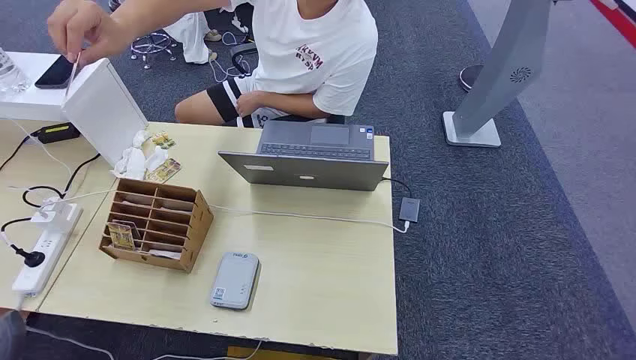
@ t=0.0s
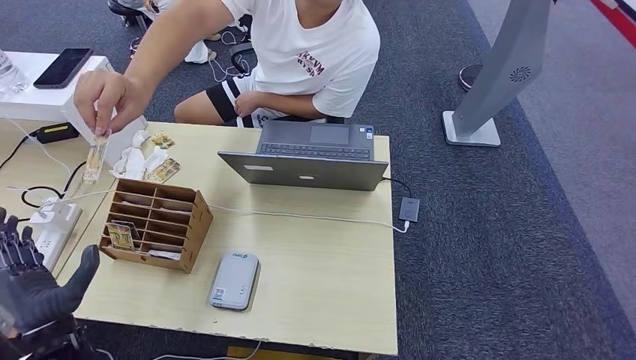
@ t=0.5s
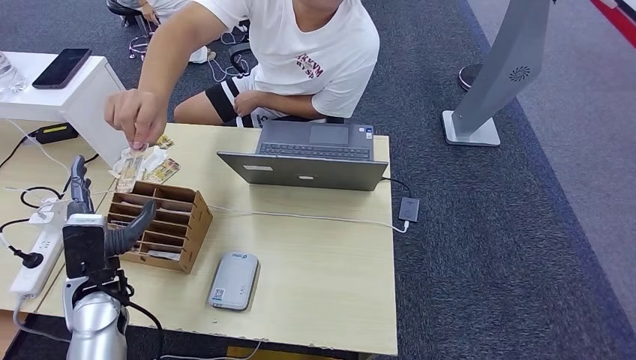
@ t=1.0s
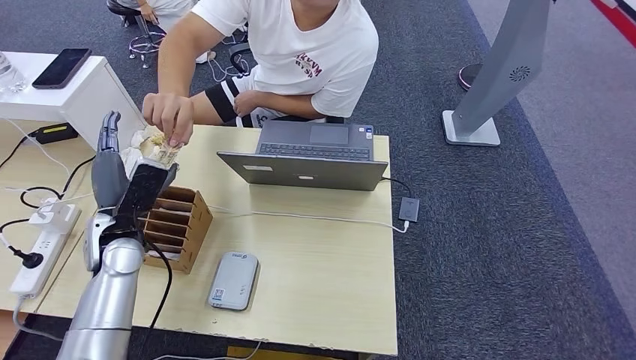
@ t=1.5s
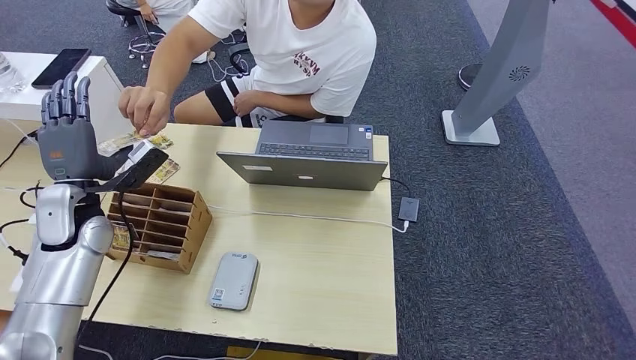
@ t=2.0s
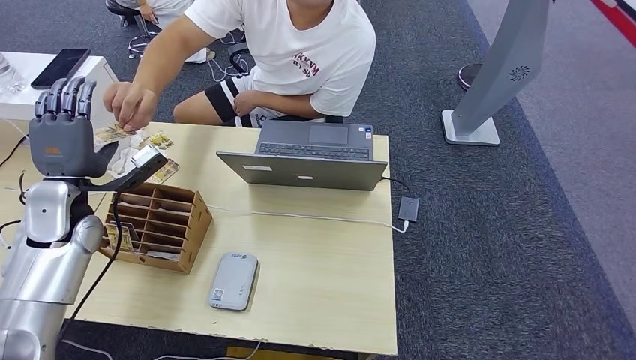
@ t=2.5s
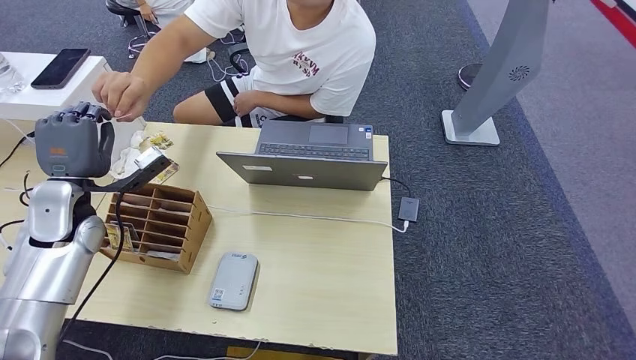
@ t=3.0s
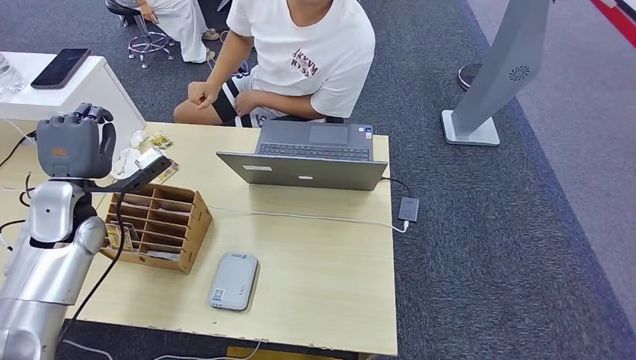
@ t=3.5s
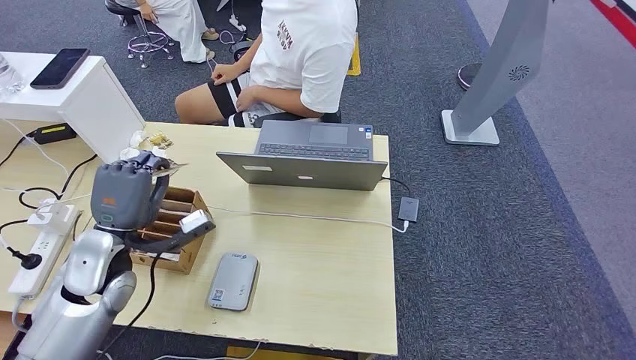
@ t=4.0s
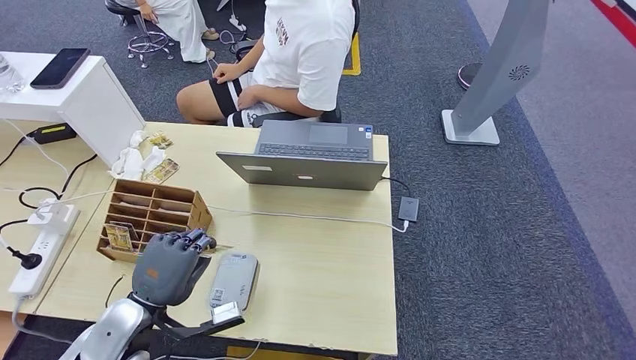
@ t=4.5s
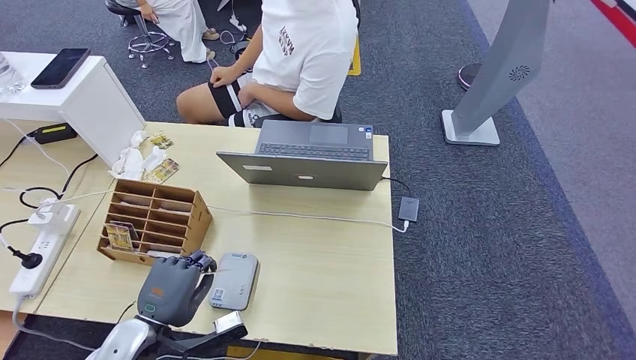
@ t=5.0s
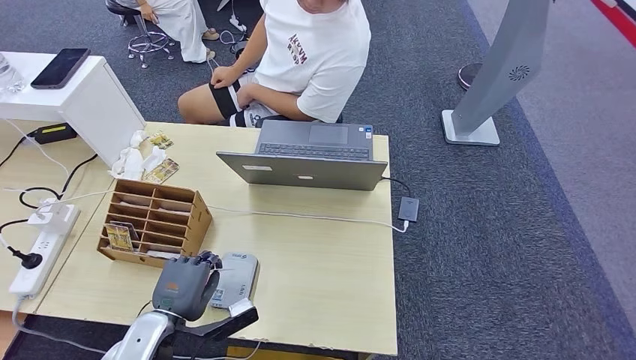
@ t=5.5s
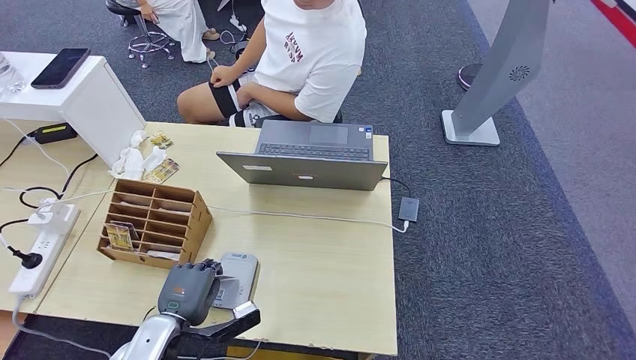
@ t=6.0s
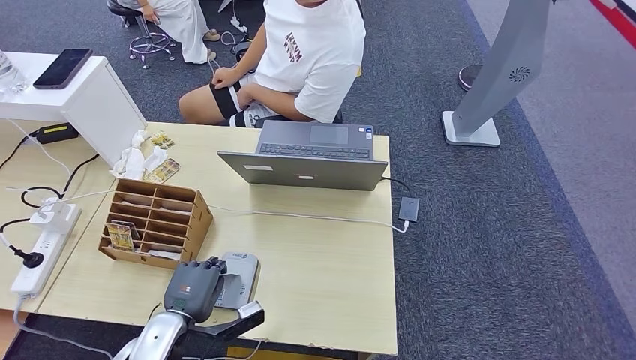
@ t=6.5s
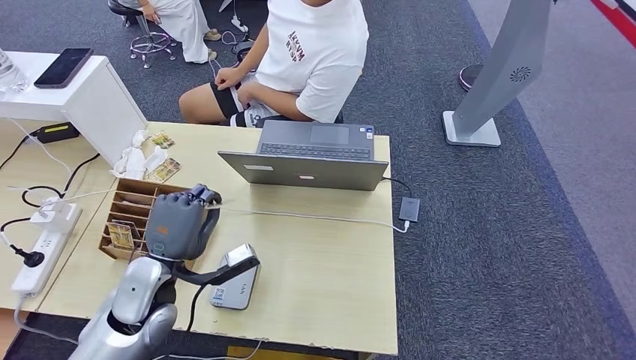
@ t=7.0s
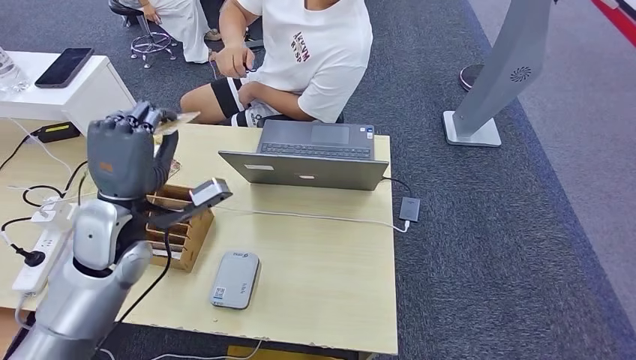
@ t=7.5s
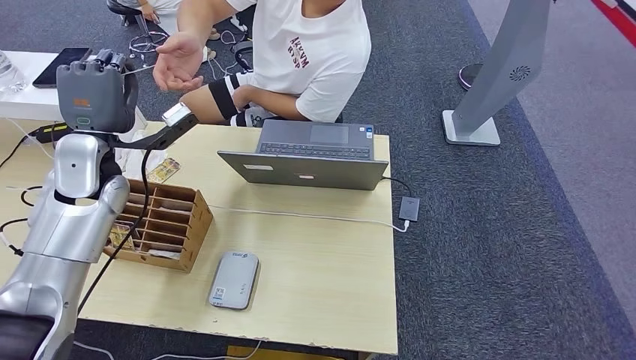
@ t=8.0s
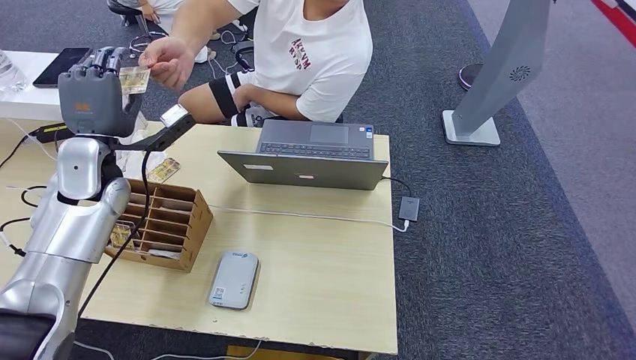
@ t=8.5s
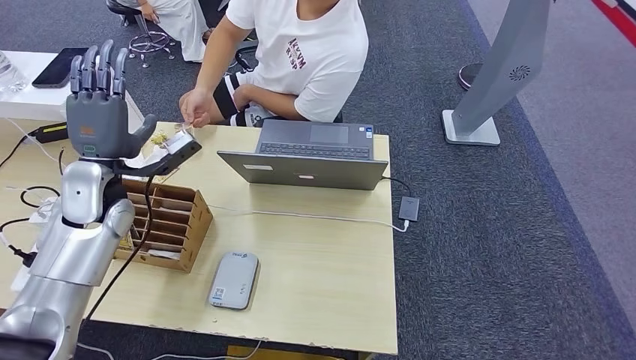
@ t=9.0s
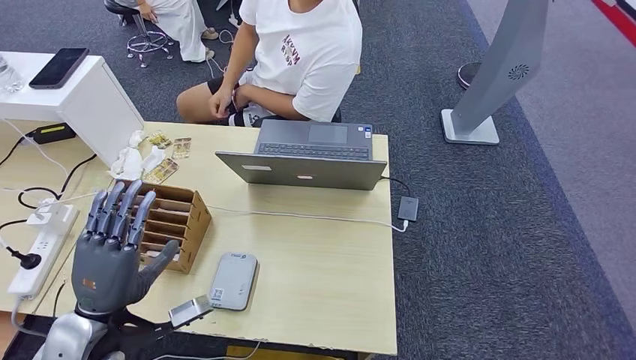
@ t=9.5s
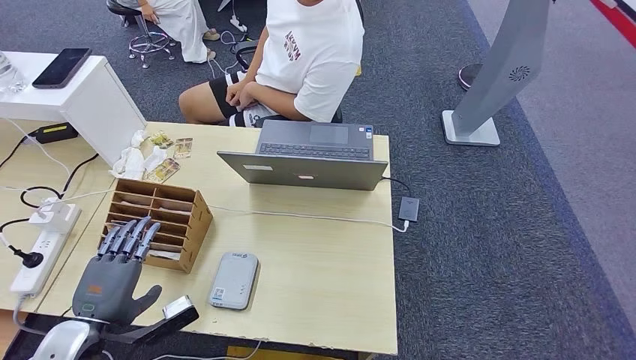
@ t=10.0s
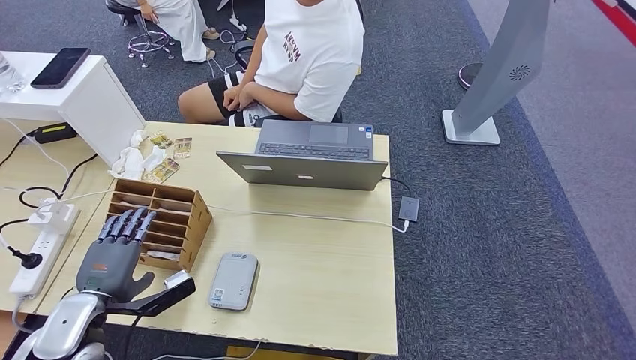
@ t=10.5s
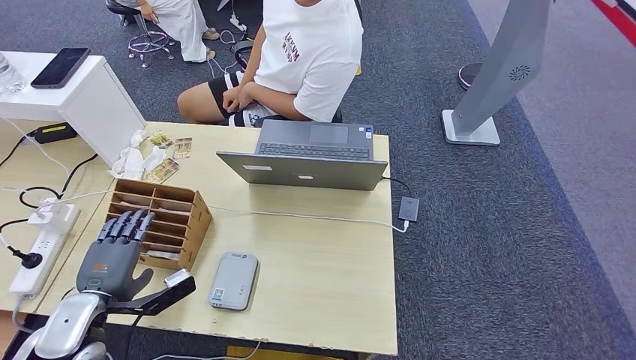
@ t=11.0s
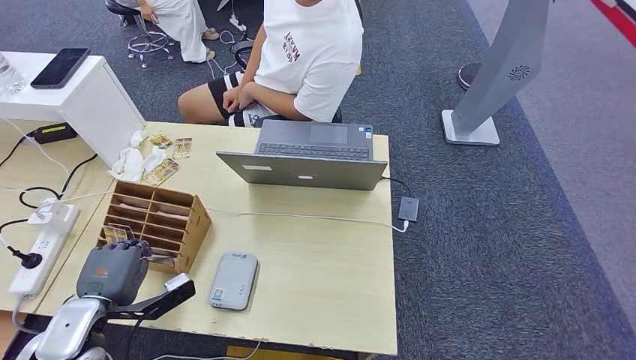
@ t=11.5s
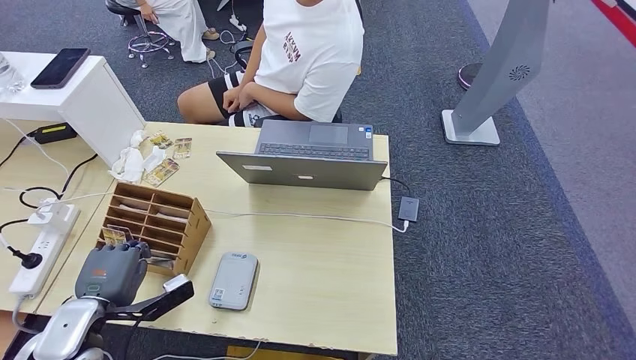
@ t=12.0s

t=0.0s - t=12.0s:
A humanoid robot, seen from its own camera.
Step, t=0.0s - t=3.0s: Take the ID card from the person's hand.
Step, t=3.5s - t=5.0s: Place the ID card on the card reader.
Step, t=5.5s - t=9.5s: Hand the ID card to the person.
t=4.0s - t=6.0s: The left hand shifts approximately 20 cm downward, backward and to the right.
t=6.0s - t=8.0s: The left hand shifts about 35 cm forward, upward and to the left.
t=8.0s - t=10.0s: The left hand shifts some 30 cm backward and downward.
t=10.0s - t=12.0s: There are only small adjustments of the hands.

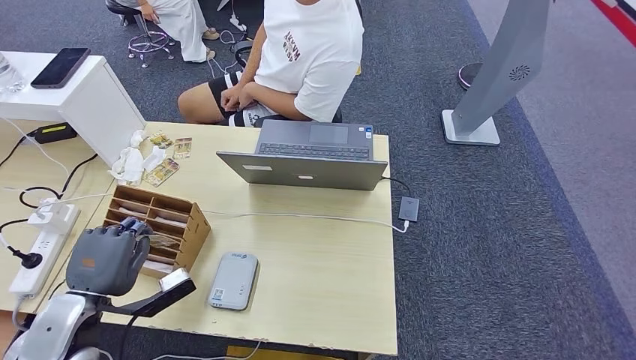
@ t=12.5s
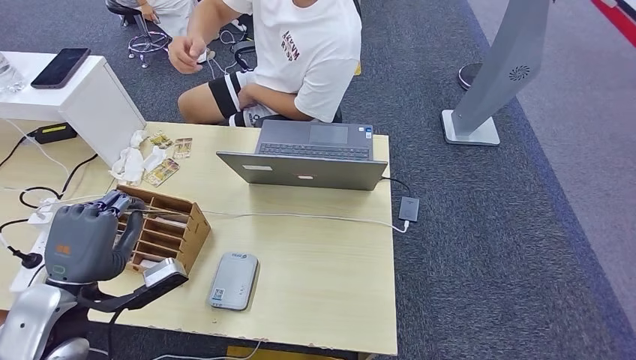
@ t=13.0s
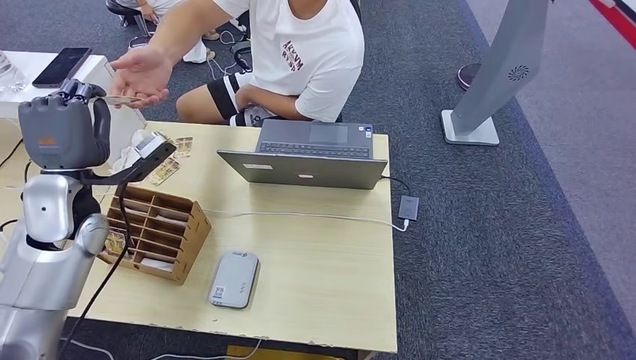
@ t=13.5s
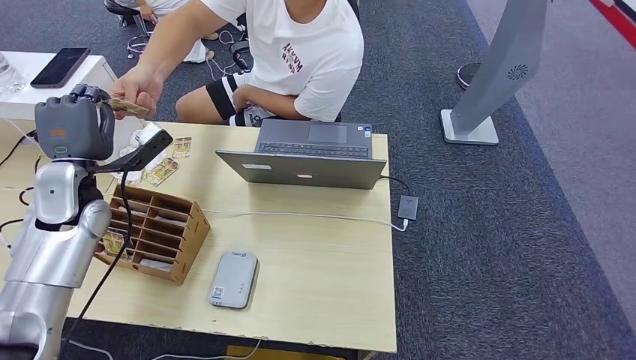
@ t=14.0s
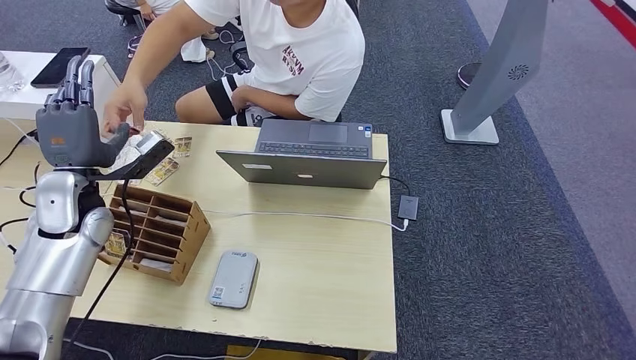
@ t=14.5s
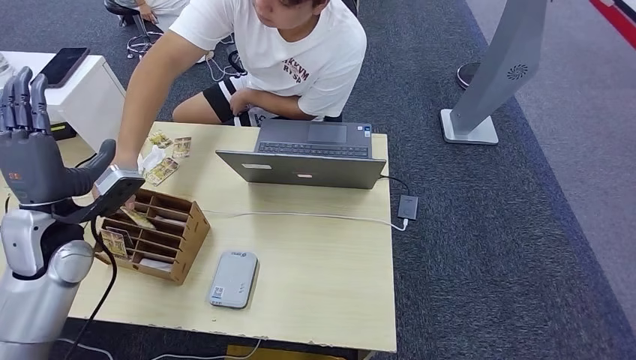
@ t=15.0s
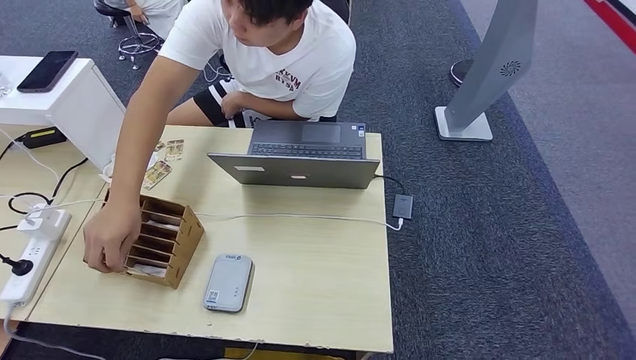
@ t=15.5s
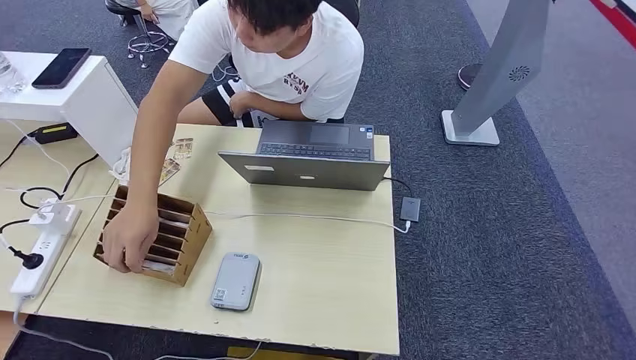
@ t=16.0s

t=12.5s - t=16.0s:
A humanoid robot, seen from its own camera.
Step, t=13.0s - t=15.5s: Hand the room key to the person.
